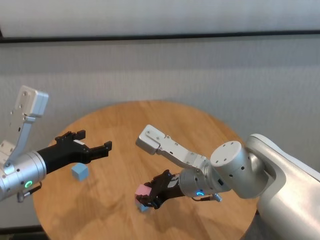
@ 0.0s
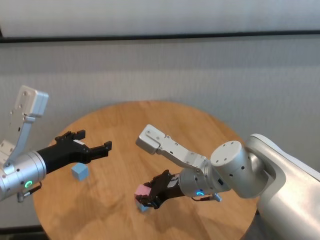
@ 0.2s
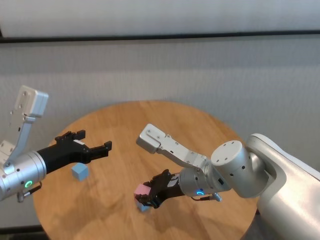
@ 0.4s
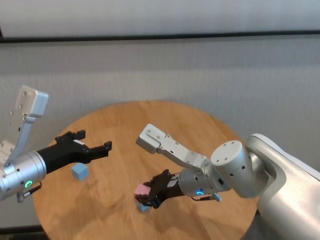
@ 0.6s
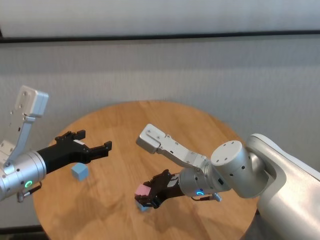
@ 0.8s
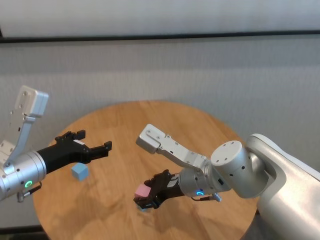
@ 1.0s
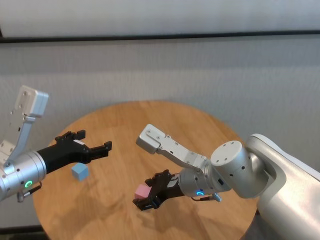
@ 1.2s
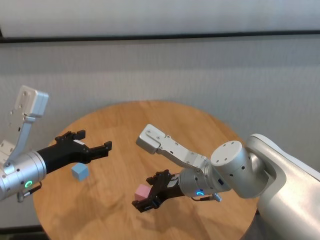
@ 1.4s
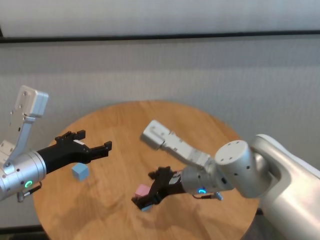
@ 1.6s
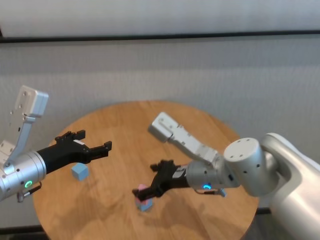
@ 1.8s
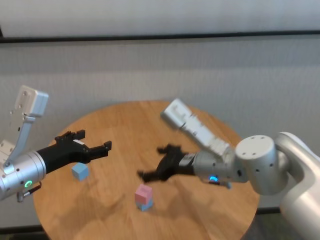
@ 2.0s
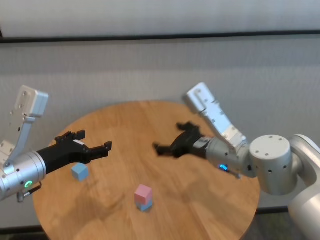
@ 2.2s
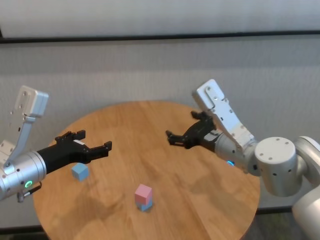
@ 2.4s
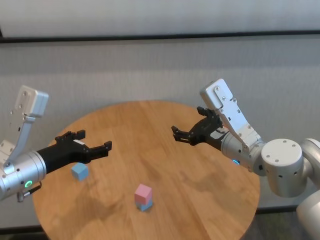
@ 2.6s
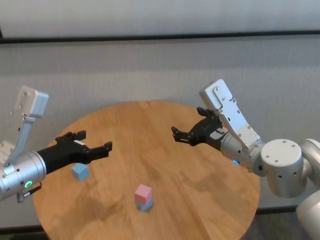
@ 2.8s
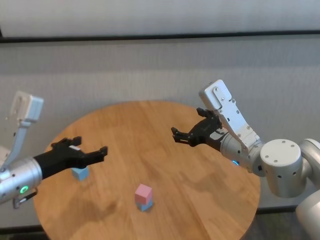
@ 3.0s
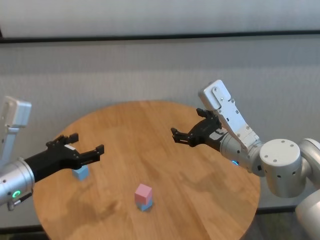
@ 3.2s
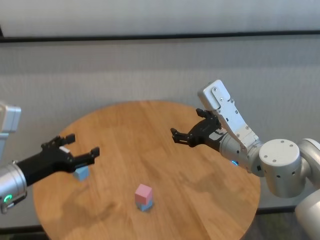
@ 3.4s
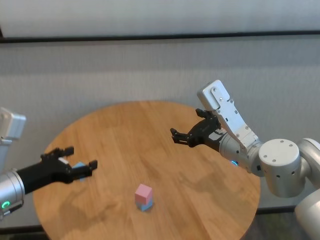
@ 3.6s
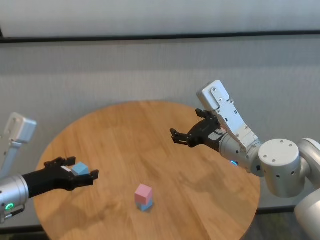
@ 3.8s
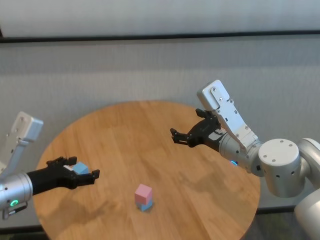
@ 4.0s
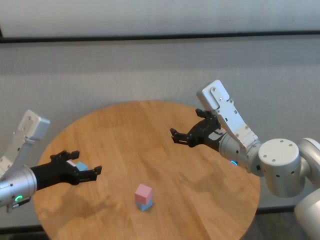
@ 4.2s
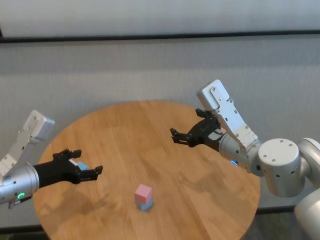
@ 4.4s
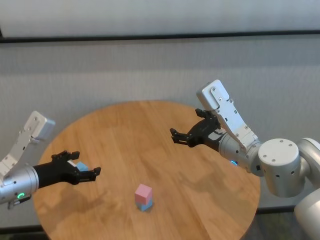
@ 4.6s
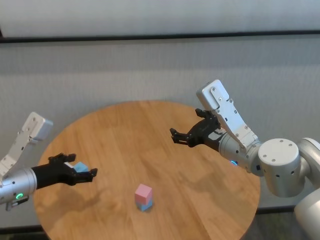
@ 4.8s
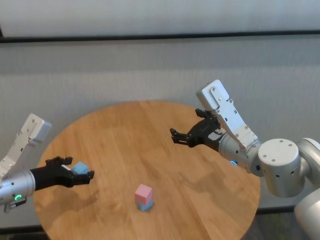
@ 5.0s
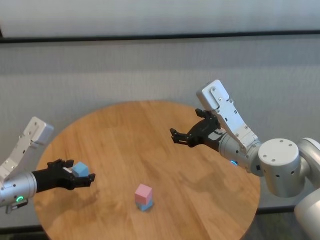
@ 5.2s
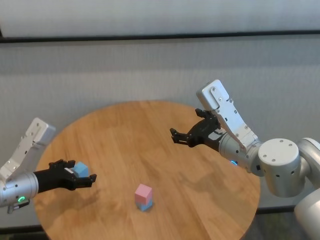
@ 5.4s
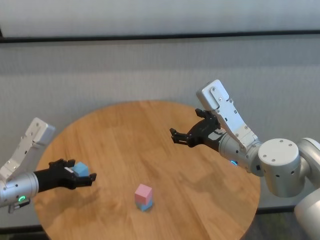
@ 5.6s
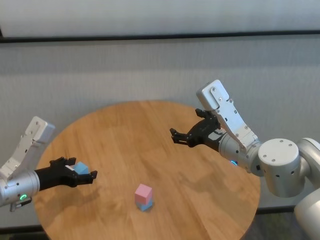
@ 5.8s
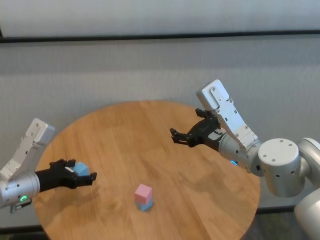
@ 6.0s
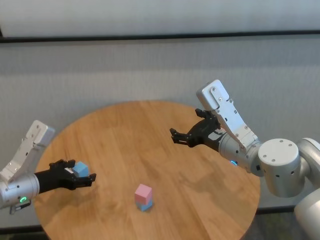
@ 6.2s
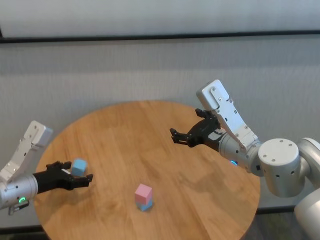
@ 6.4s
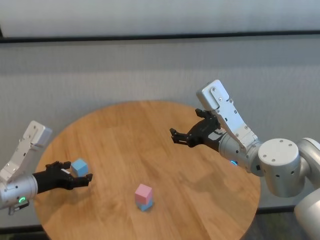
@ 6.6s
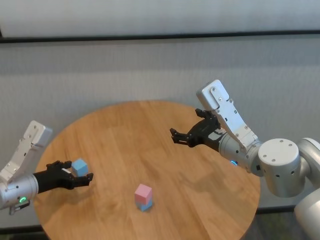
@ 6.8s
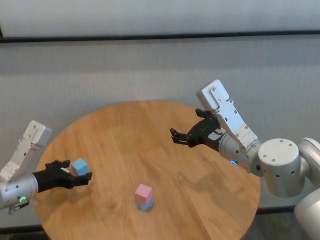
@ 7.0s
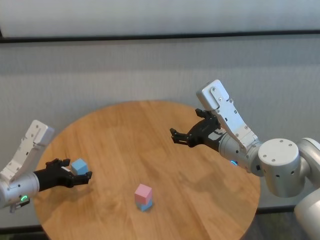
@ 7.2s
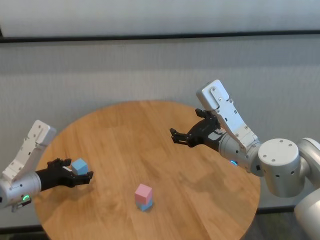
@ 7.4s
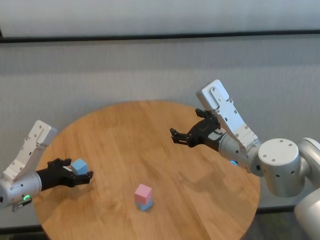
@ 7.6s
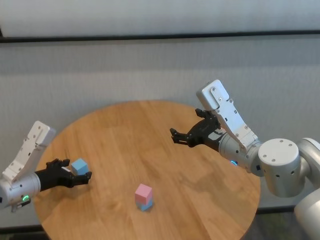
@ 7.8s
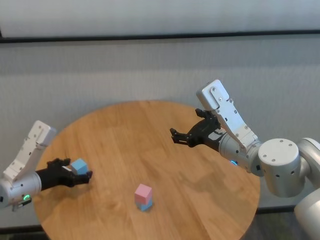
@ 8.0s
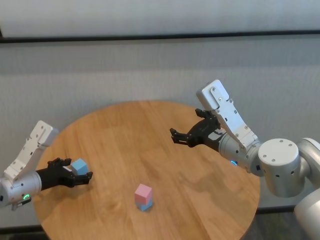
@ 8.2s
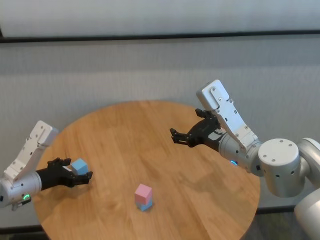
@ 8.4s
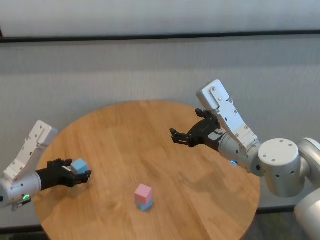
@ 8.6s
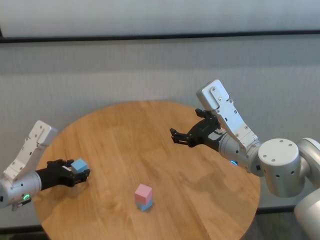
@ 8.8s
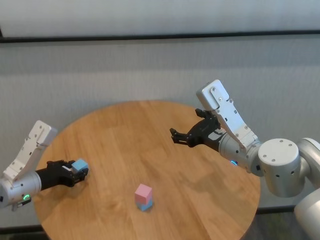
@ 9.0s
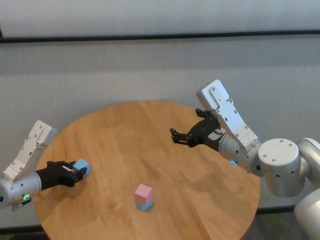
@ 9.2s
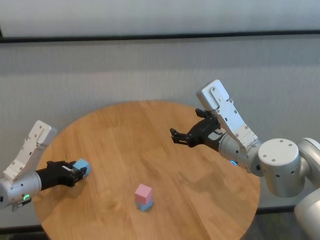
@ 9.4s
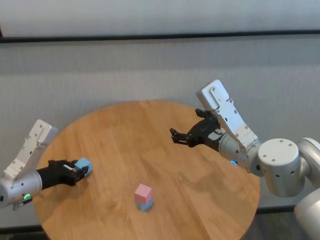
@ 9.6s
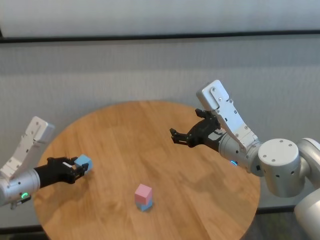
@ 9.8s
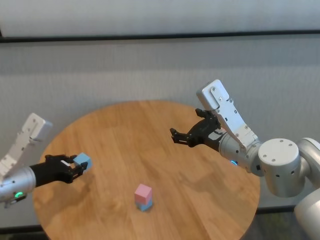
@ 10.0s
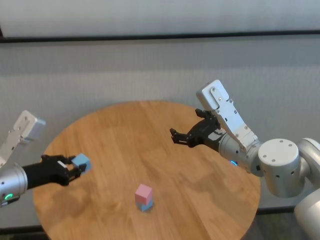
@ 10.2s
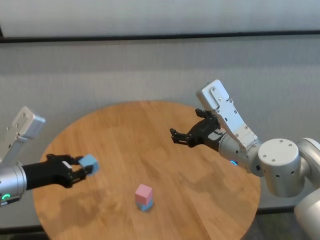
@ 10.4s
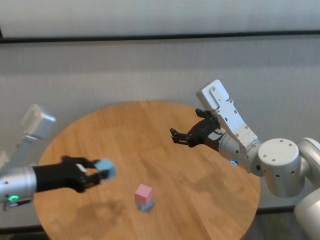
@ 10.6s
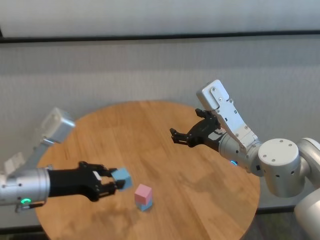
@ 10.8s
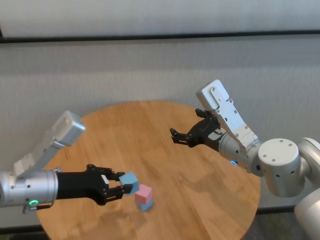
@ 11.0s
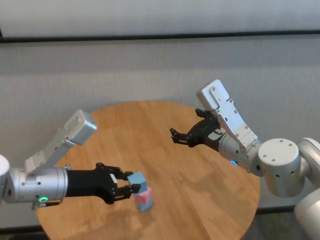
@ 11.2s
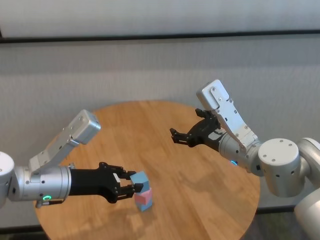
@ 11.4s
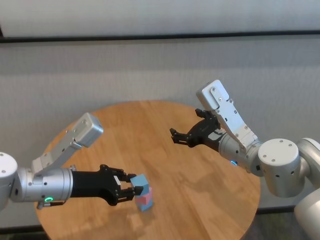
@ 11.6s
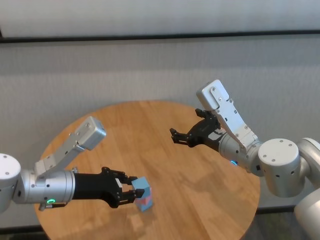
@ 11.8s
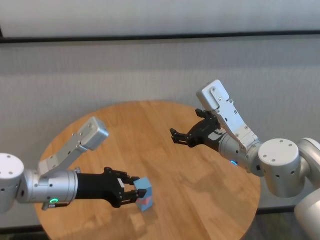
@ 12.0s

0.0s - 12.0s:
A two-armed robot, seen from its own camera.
Task of the whole recording: stack building blocks on the table.
Step, 1.2s - 9.4s: Grasp the blue building block with left gripper.

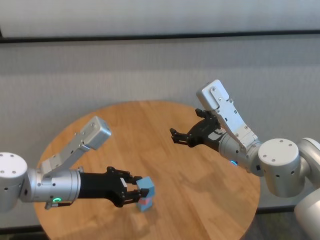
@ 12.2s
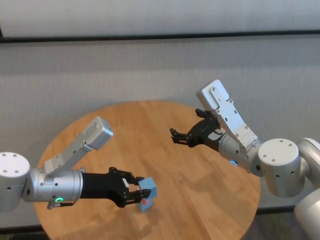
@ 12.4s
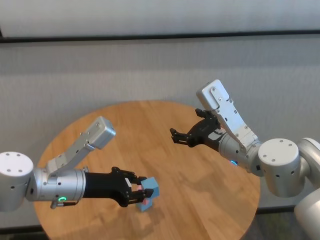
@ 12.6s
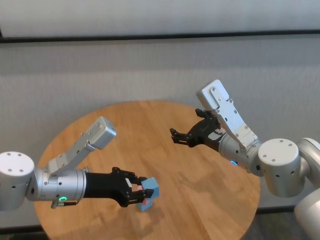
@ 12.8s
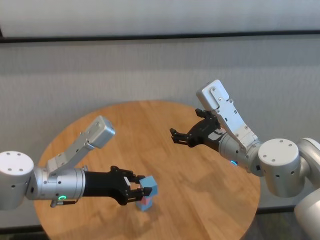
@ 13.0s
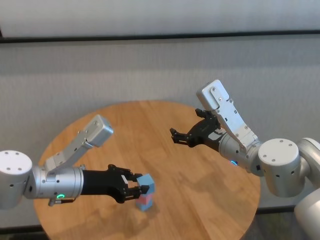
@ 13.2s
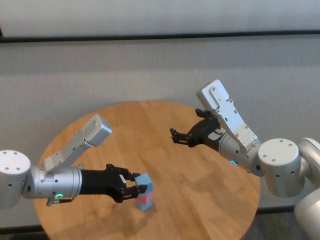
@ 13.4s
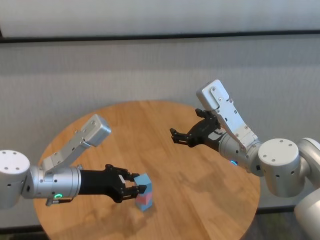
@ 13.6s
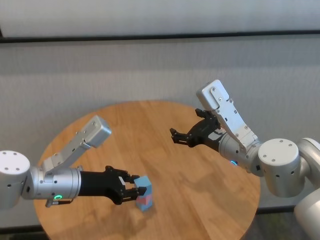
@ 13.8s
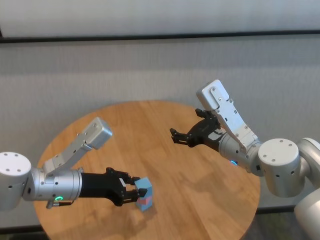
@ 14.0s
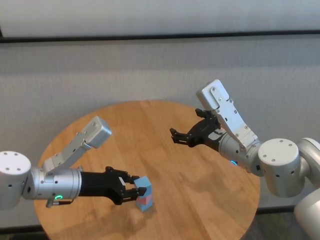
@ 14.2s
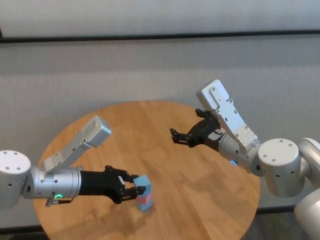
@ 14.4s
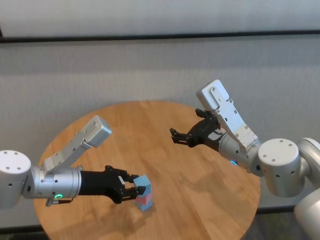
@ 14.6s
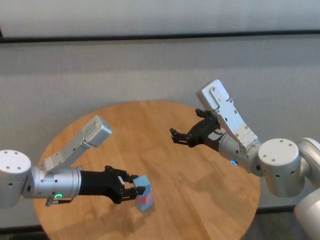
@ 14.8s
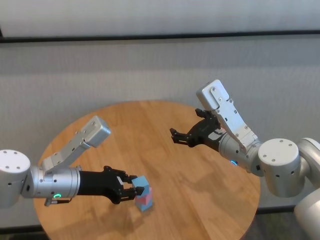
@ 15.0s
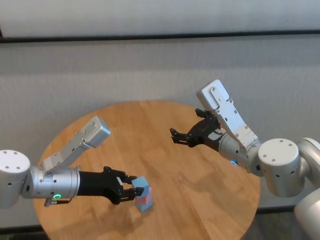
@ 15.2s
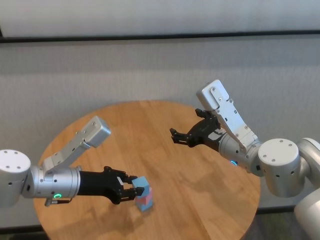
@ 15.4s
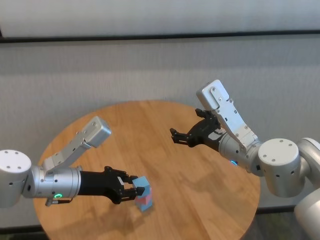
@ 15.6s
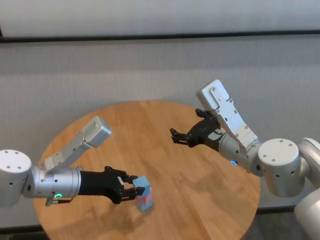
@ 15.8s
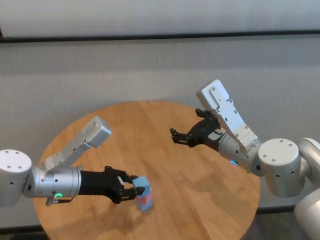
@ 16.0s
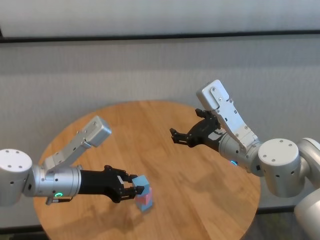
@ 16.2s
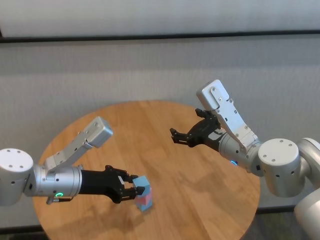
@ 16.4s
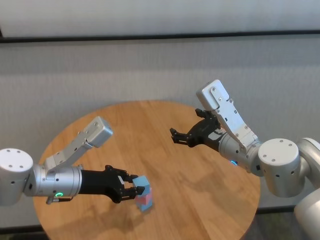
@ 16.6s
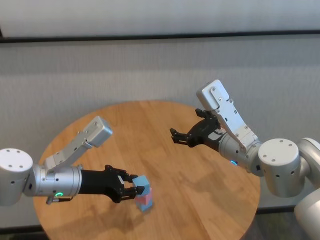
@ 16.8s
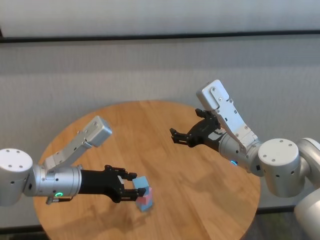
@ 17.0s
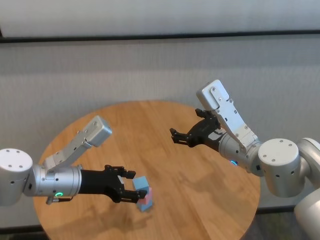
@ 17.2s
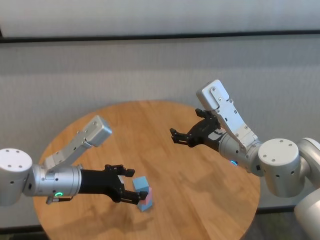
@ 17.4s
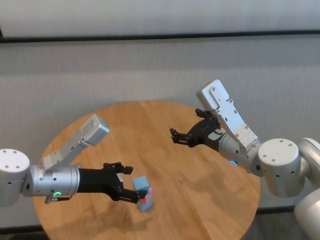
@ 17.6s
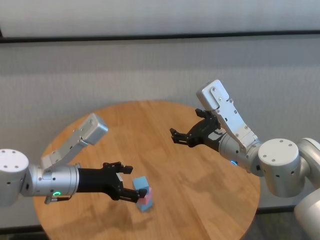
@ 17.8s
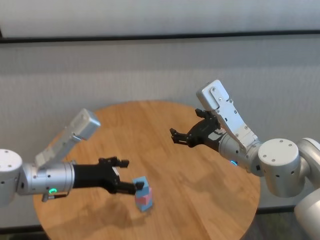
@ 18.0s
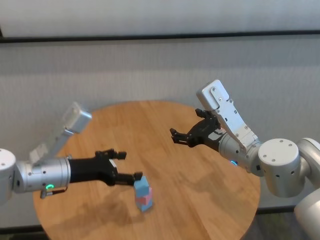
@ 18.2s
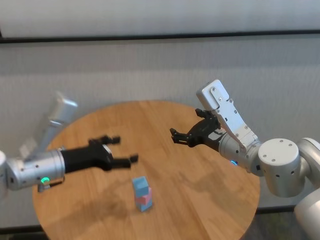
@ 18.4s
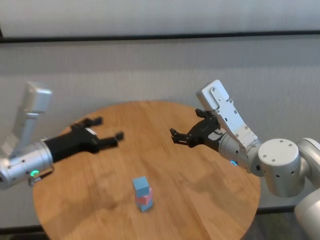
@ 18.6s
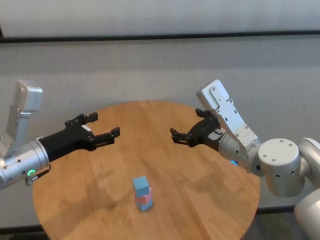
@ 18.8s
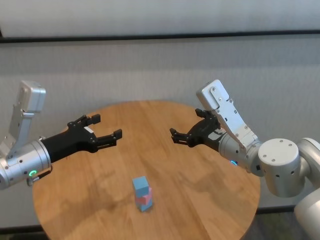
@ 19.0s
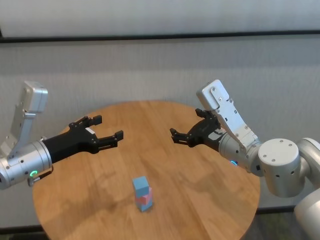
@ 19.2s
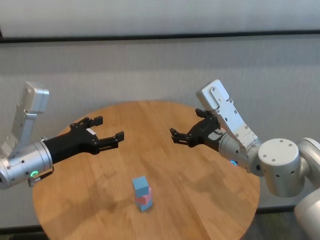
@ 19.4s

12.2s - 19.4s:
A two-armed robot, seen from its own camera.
Task of the whole recording: stack building blocks on the table.
Step, 12.2s - 17.0s: Place the blue building block on the pink building blocks with left gripper.

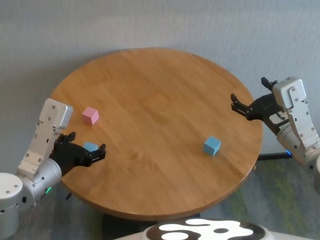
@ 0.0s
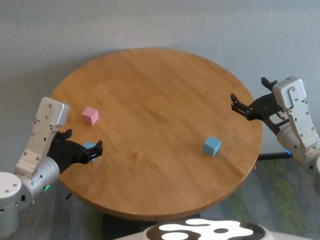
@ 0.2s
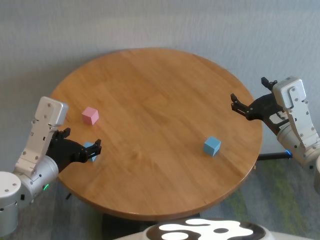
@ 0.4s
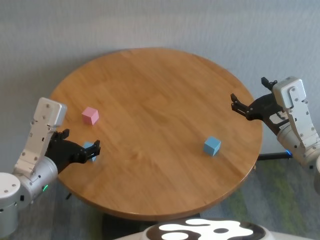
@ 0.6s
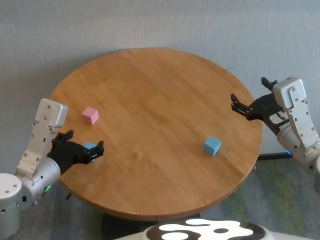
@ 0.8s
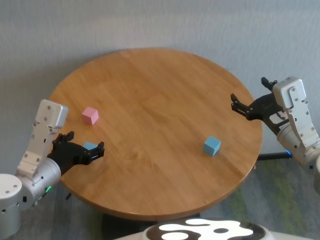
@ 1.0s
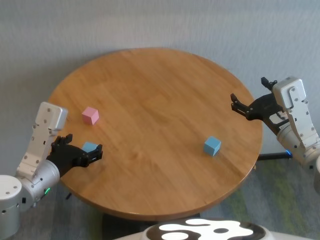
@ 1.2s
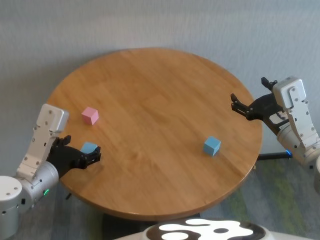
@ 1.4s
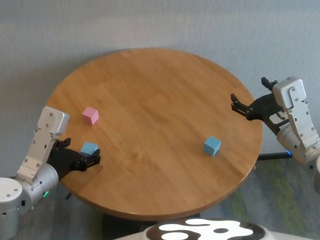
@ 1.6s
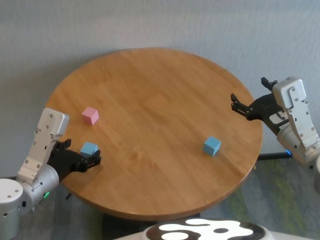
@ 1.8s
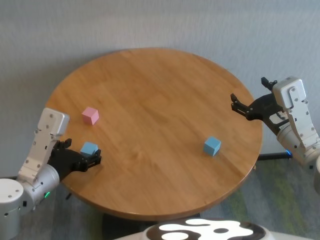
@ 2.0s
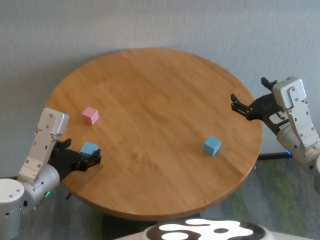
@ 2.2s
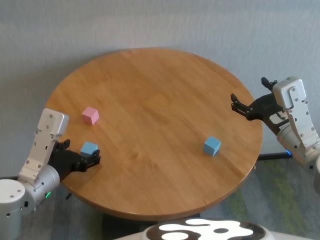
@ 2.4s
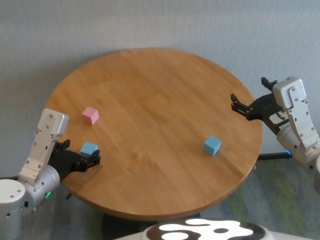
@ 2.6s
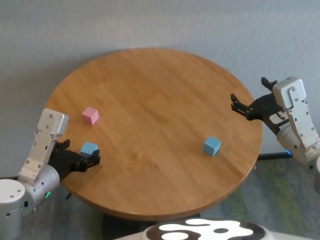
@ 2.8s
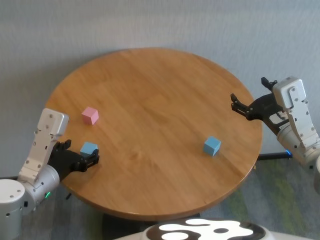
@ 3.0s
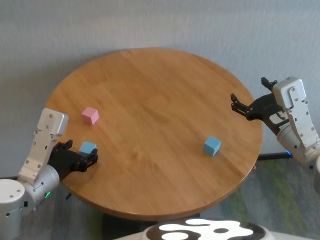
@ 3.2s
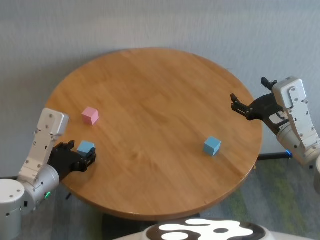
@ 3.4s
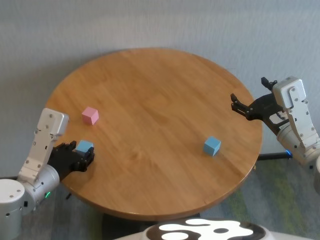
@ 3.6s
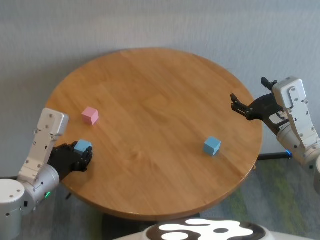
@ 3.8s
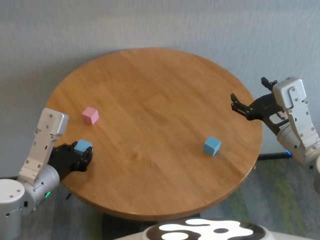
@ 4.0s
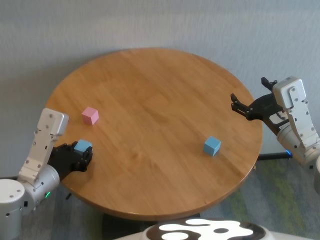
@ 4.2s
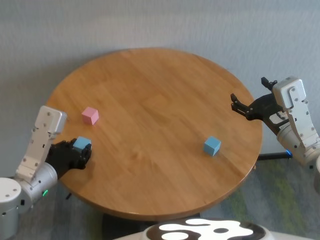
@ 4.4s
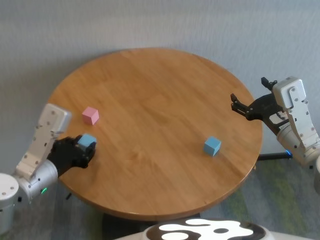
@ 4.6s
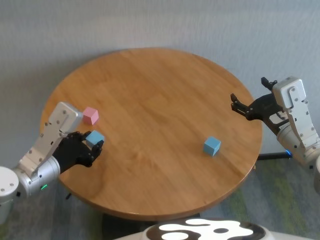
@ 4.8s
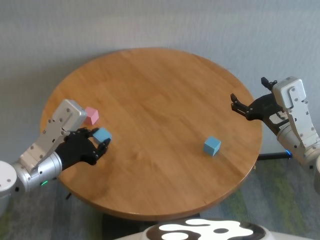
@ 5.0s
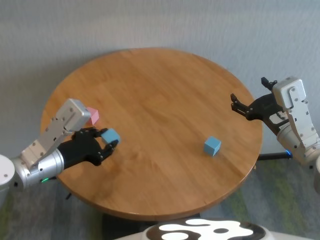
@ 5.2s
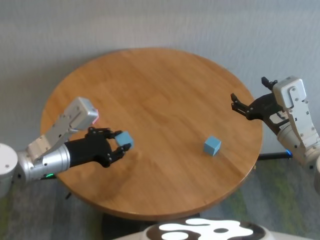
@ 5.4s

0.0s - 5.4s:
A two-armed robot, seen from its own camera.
Task of the whole recording: stack building blocks on the table.
Step, 0.0s - 4.0s: Grasp the blue building block with left gripper.
